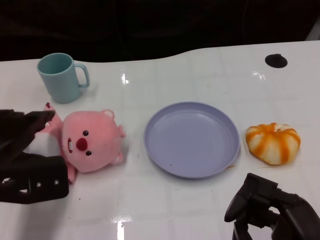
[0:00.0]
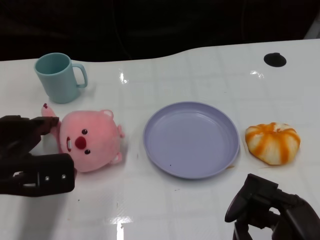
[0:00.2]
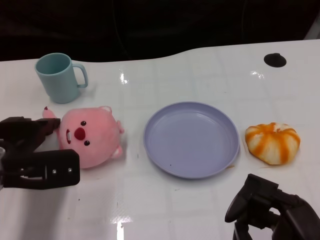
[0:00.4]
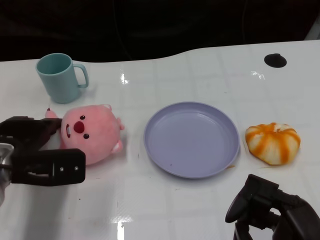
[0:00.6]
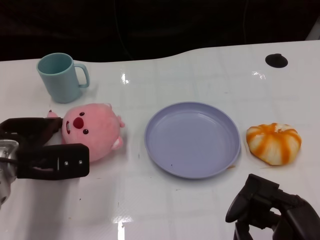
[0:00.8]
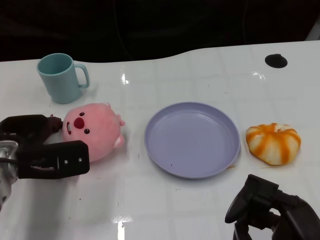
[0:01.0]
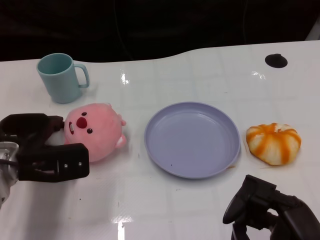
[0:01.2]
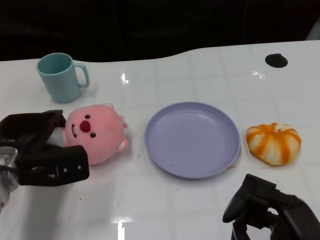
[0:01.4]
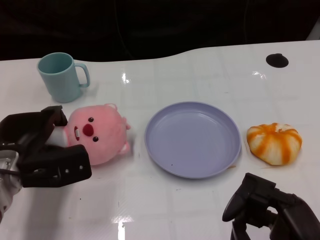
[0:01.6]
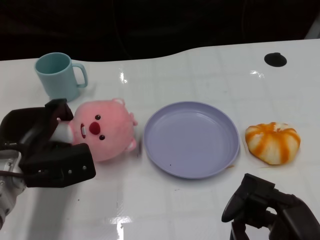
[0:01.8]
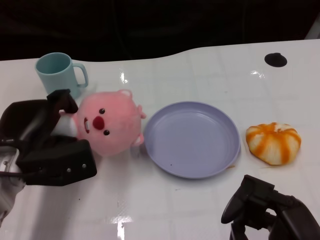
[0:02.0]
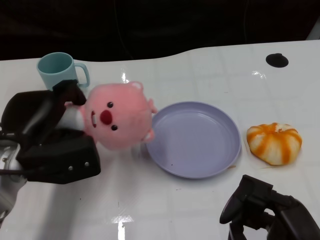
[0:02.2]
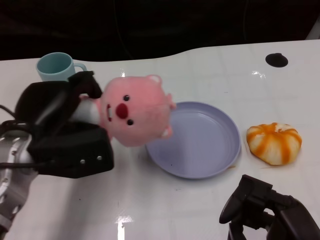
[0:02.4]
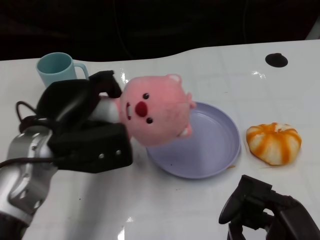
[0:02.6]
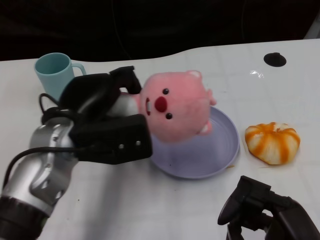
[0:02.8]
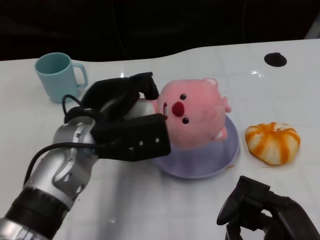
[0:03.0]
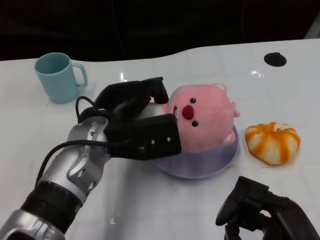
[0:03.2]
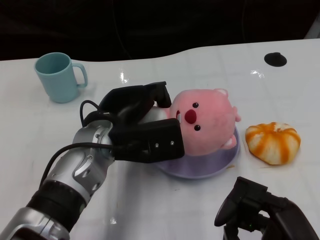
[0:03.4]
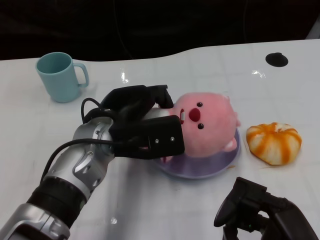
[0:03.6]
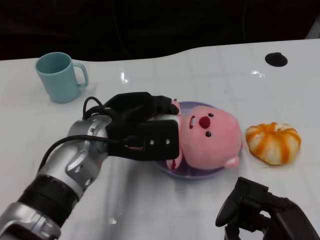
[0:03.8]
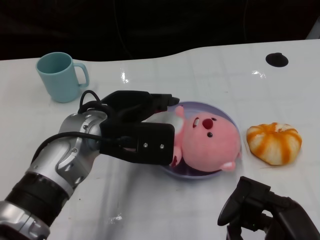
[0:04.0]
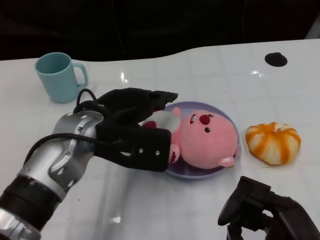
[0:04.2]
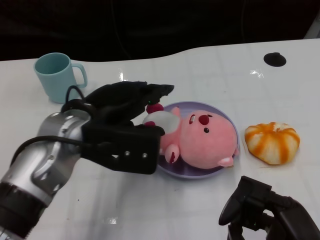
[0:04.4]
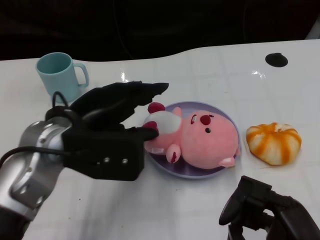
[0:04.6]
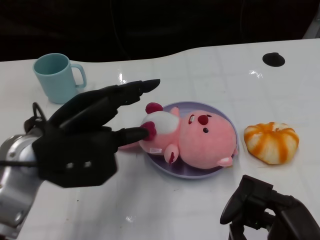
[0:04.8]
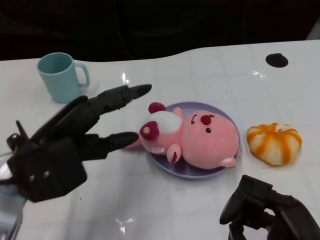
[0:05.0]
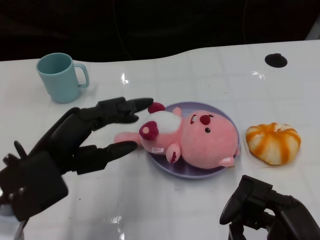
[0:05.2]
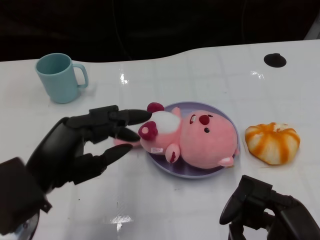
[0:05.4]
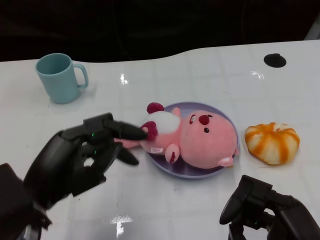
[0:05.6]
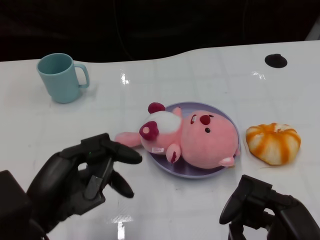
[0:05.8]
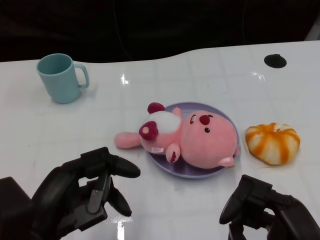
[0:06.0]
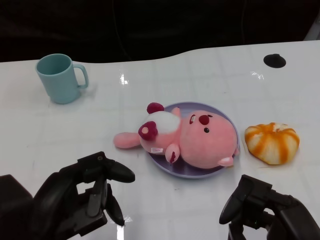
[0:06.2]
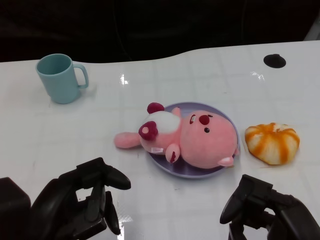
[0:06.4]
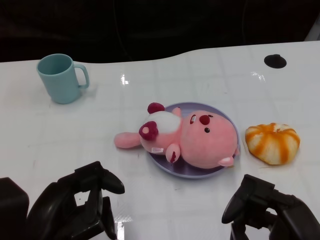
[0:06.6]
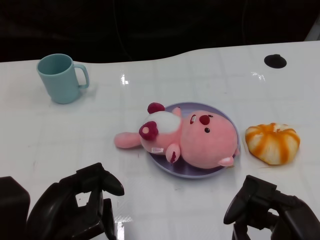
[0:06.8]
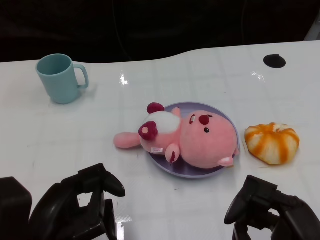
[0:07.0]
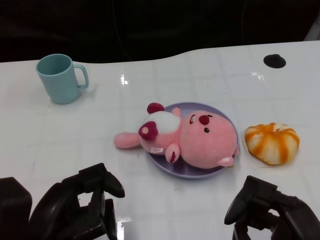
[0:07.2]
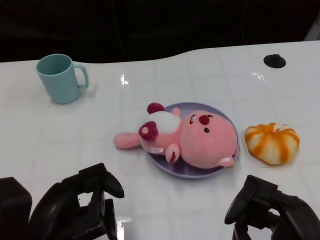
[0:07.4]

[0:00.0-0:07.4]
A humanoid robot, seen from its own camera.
Task of the whole recording: Pick up the doll on one side of the plate and place it into the plate.
Step, 2.0 to 4.0 s: Place the pink doll into the plate with the left gripper.
0.0 to 1.4 s: The left hand moves downward and forward, some 10 cm.
1.4 to 3.0 s: The left hand travels to the right and upward by roughly 15 cm.
4.4 to 6.0 s: The left hand goes about 15 cm backward and to the left.
6.0 to 7.4 s: The hands stay close to where they were, moving slightly.

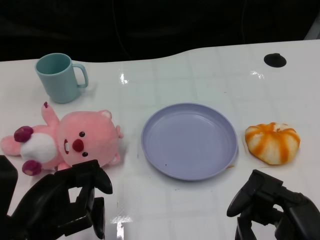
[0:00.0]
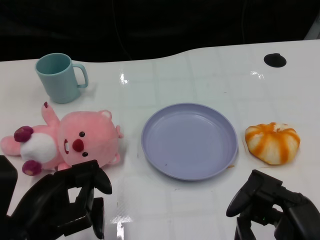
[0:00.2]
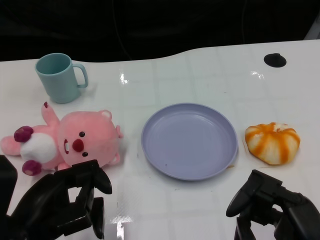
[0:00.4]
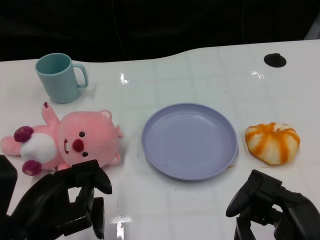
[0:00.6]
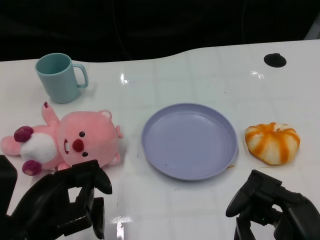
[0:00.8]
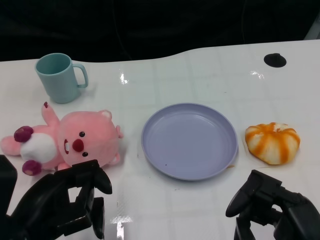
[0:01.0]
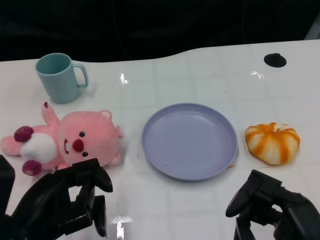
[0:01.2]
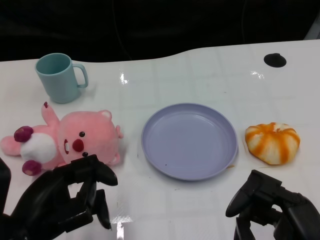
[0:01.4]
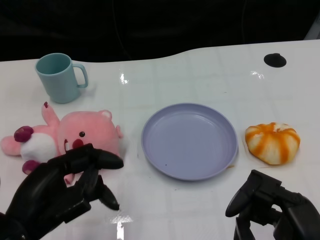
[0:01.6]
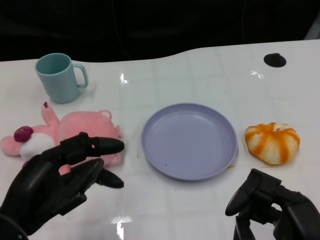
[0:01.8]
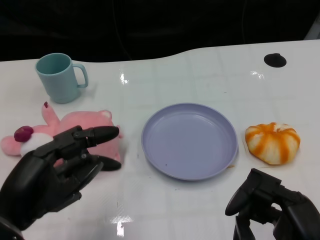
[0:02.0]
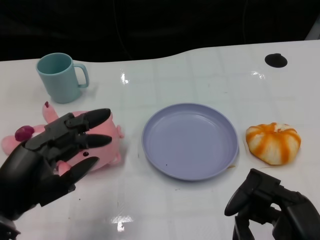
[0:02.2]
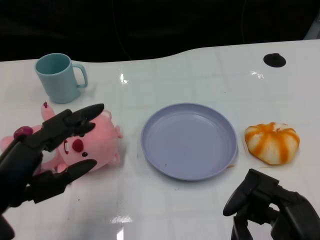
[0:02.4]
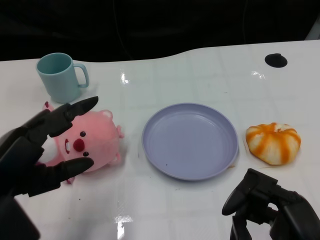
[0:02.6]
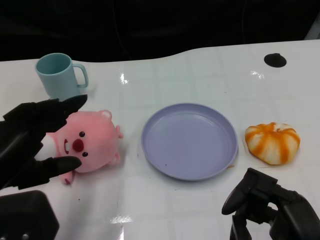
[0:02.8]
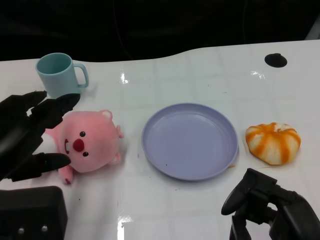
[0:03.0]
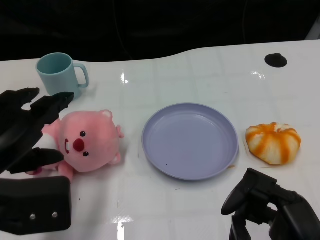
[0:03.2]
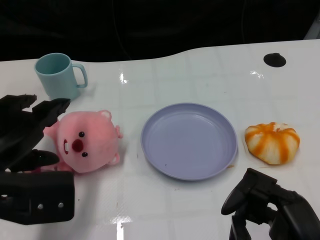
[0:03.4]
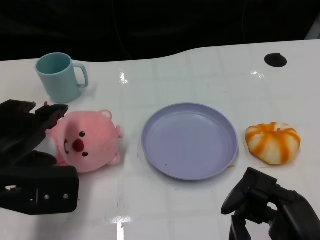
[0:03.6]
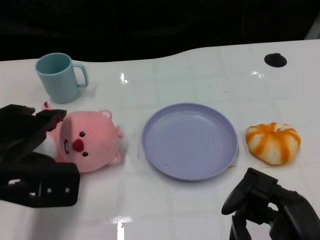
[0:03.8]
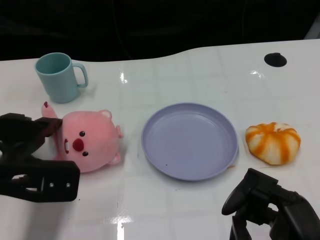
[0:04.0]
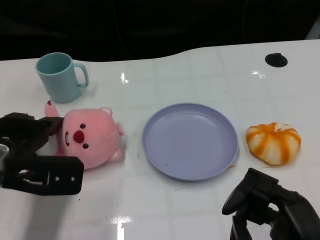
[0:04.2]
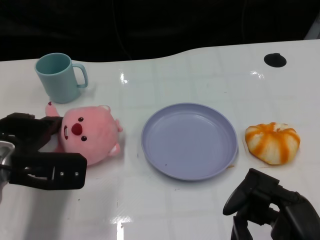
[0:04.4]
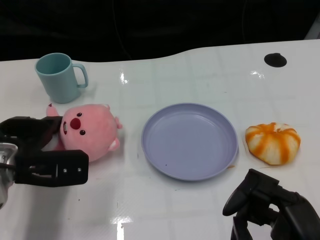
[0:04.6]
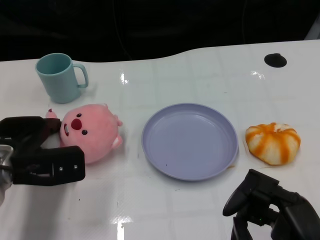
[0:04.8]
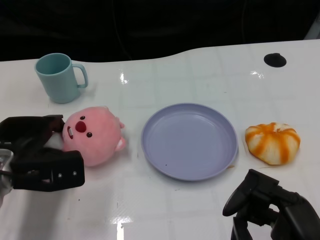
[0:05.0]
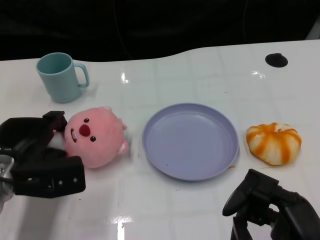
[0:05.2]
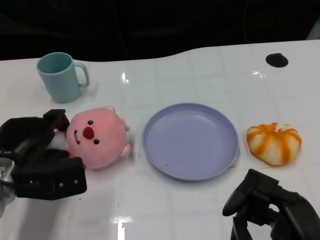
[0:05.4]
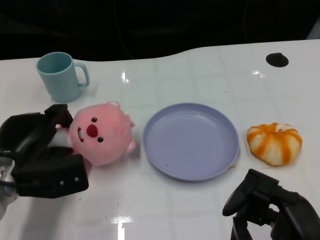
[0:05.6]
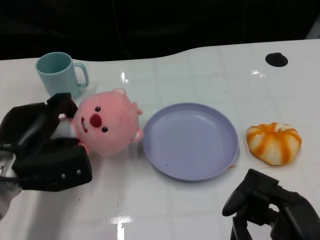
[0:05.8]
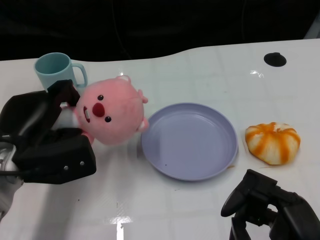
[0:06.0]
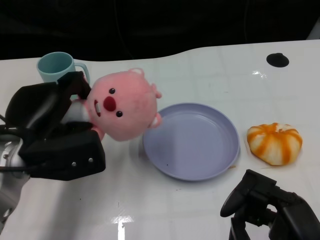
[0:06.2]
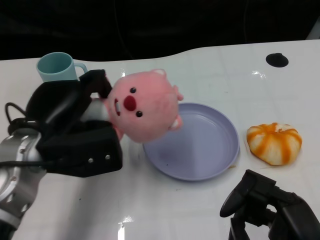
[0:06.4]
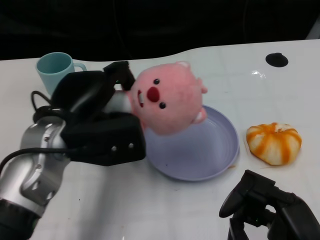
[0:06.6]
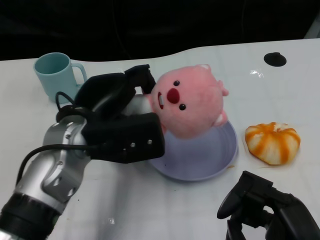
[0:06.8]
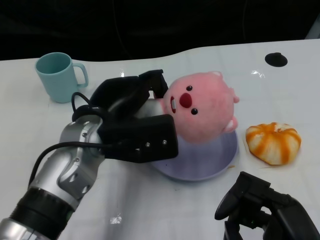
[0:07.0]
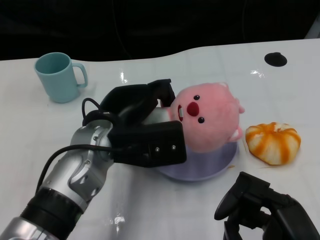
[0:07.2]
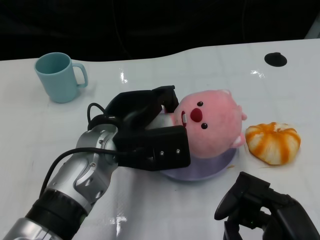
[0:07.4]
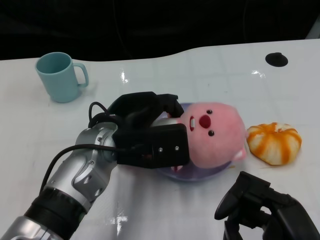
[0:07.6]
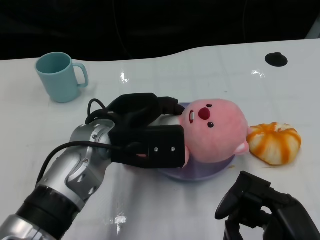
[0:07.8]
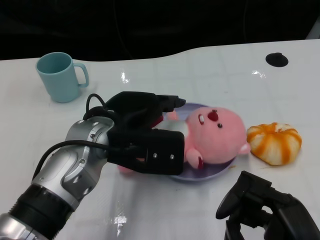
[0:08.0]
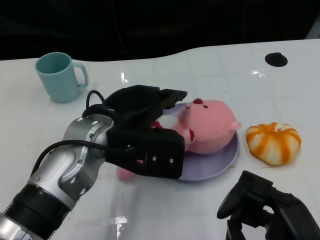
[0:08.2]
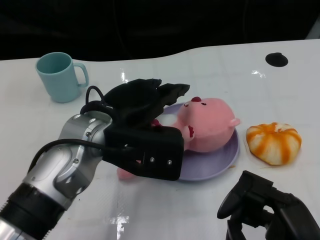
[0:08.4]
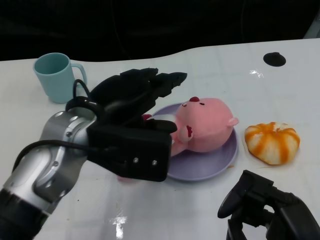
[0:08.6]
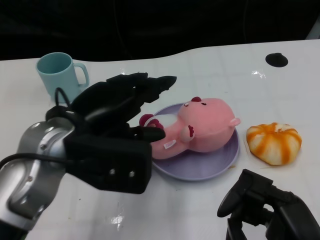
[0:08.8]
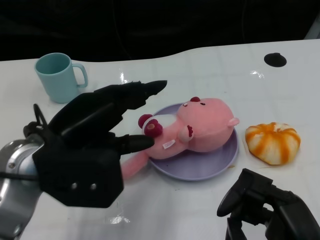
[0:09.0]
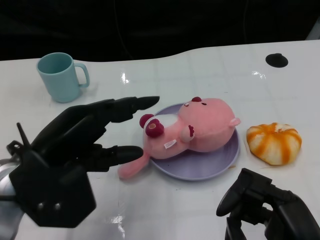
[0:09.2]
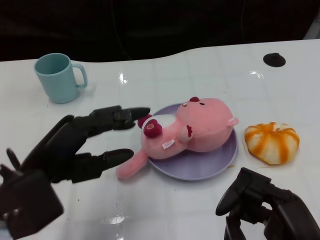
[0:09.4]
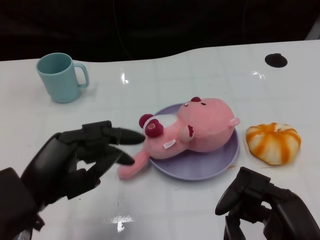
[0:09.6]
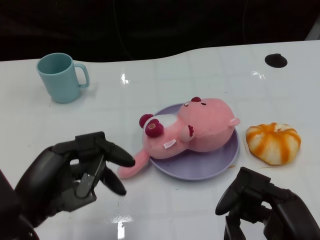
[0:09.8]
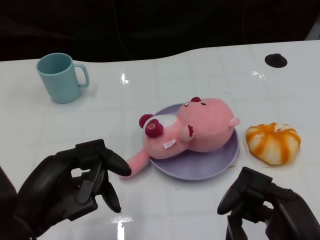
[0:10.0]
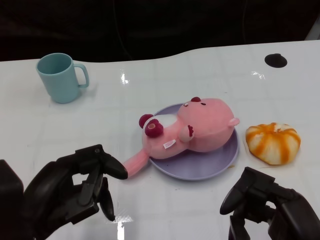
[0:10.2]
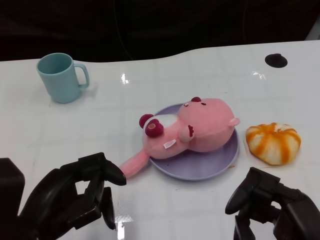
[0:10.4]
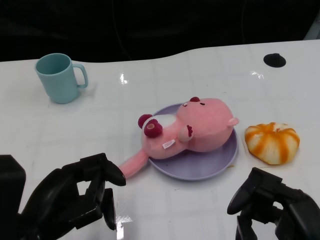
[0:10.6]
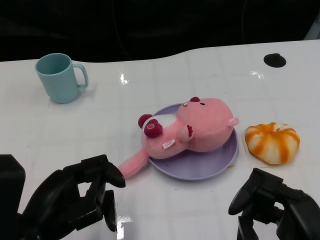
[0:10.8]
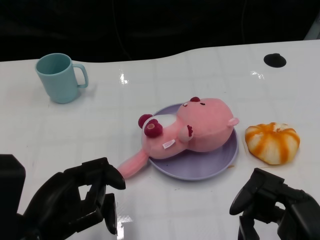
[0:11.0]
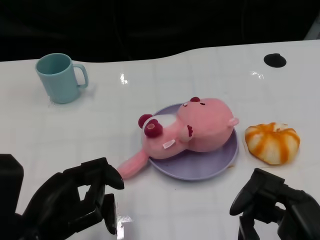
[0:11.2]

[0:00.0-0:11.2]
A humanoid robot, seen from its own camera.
Task of the whole recording: Pick up the doll on one side of the plate and place it into the plate.
Step, 1.2 to 5.6 s: Grasp the pink doll with the left gripper.
Step, 5.8 to 8.4 s: Place the pink doll into the plate with the left gripper.
1.6 to 3.2 s: The left hand heads upward, covering about 5 cm.
3.2 to 4.8 s: The left hand moves forward and downward, roughly 15 cm.
4.8 to 6.4 s: The left hand is displaced upward and to the right by about 10 cm.
6.4 to 8.0 s: The left hand is displaced to the right by roughly 10 cm.
8.0 to 9.6 s: The left hand shifts roughly 15 cm to the left and backward.

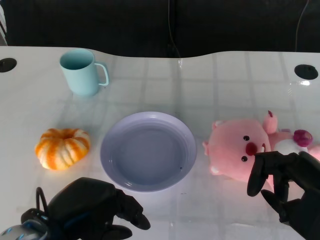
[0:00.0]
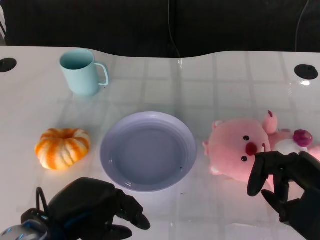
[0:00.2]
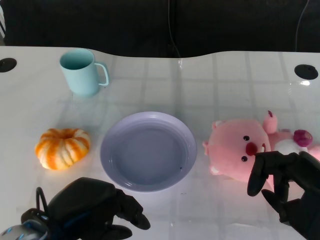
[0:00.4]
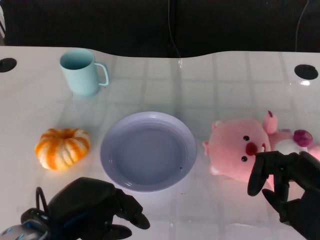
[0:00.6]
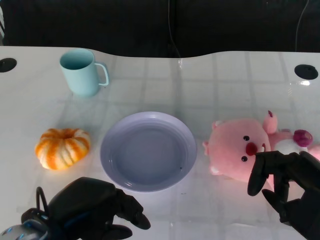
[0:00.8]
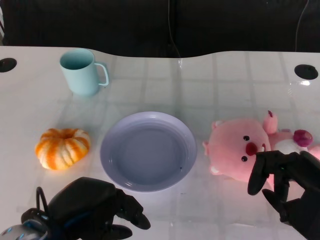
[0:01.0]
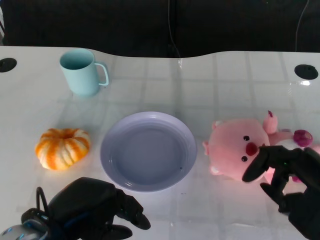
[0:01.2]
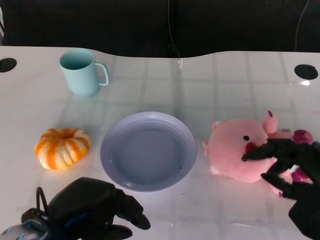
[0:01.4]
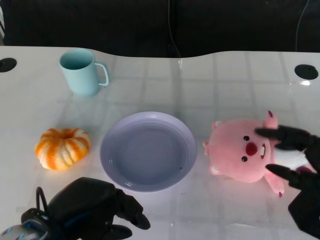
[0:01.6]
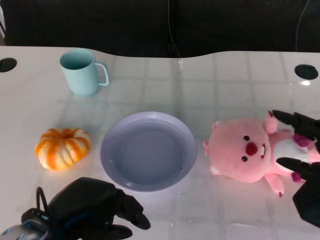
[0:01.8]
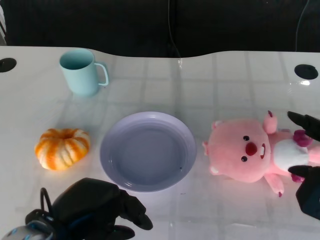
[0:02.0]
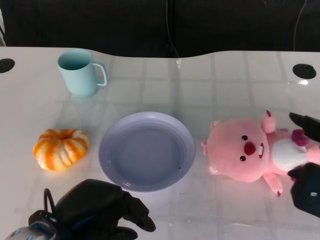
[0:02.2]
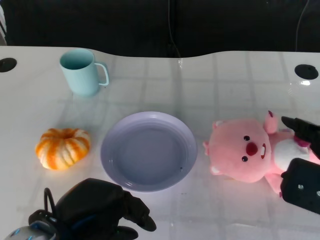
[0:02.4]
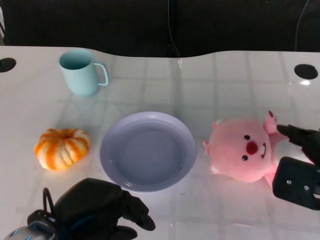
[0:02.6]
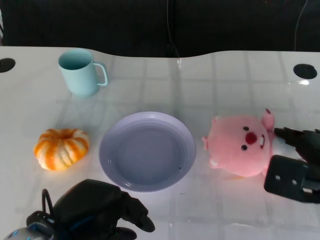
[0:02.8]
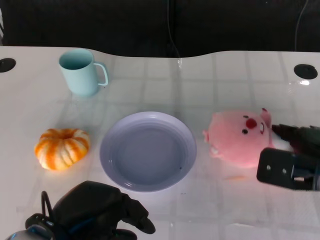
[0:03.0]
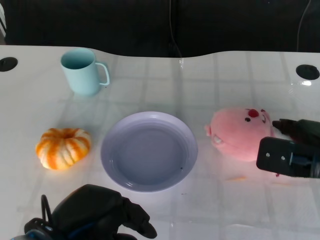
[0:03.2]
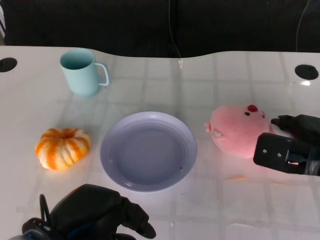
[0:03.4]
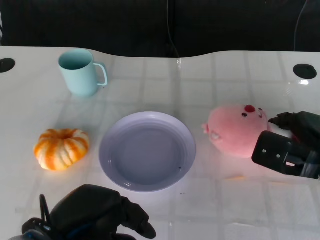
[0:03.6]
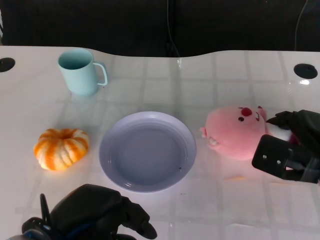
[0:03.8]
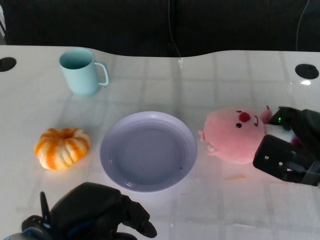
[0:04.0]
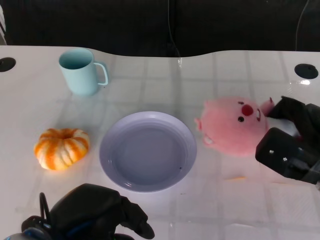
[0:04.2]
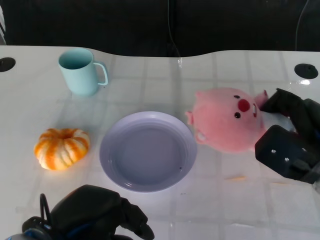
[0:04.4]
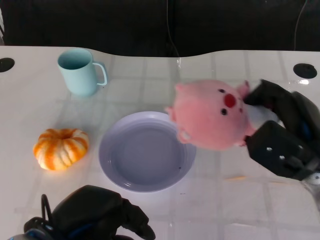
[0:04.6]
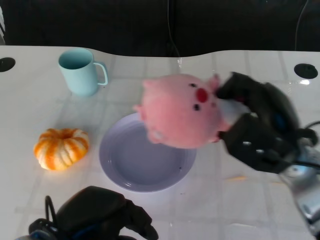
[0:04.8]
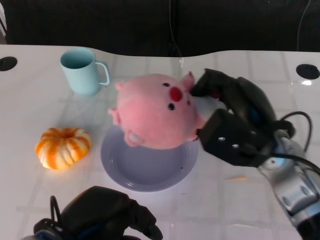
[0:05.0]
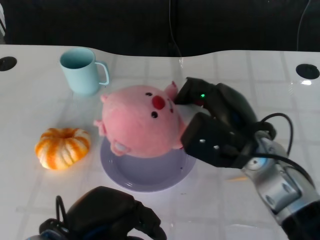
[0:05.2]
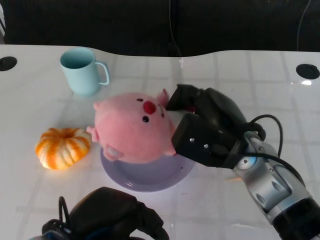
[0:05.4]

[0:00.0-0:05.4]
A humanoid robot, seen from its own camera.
Task of the whole recording: Pick up the doll on the other side of the plate and place it into the plate.
Step, 1.0 to 4.6 s: Grasp the pink doll with the right gripper.
1.4 to 2.8 s: The right hand moves forward, approximately 5 cm.
2.8 to 4.0 s: The right hand shifts by about 5 cm.
4.0 to 5.4 s: The right hand is displaced to the left and upward by about 15 cm.
